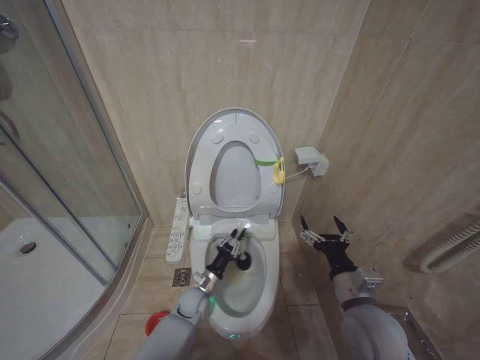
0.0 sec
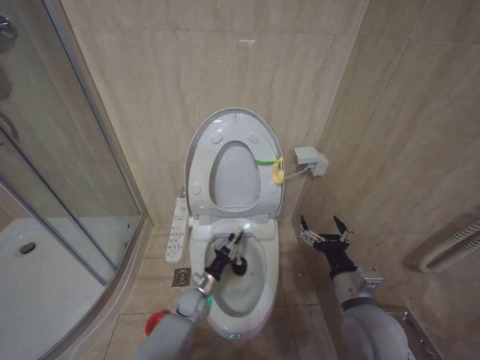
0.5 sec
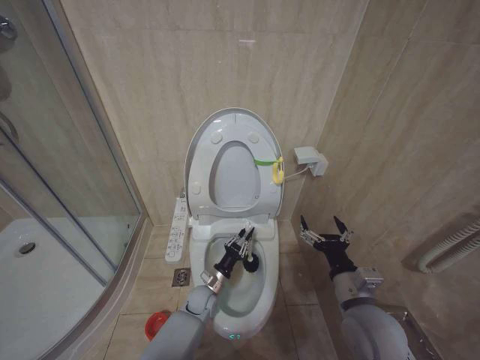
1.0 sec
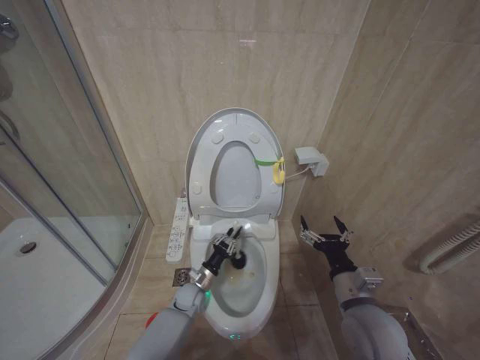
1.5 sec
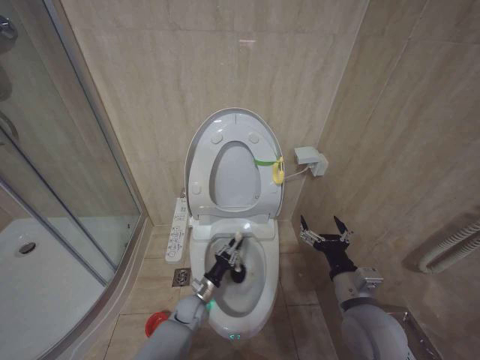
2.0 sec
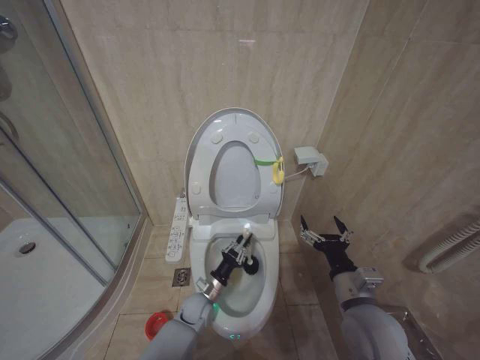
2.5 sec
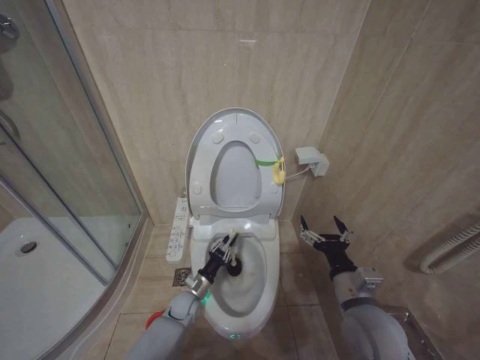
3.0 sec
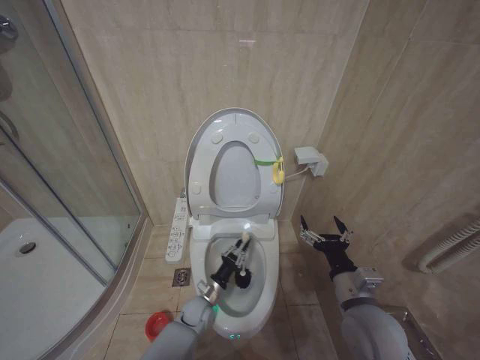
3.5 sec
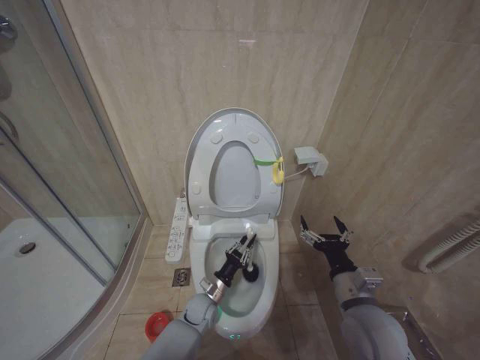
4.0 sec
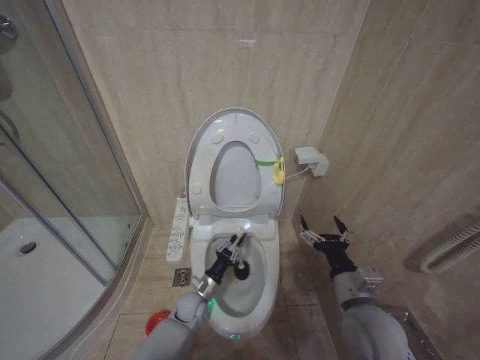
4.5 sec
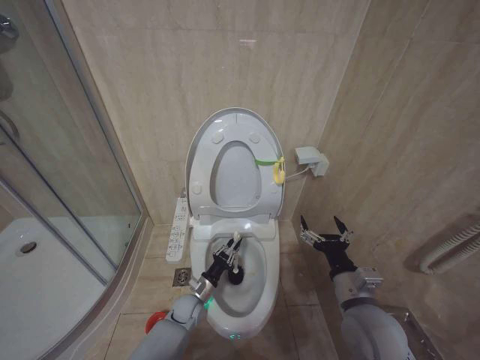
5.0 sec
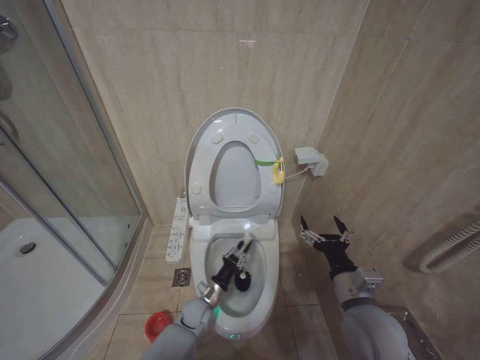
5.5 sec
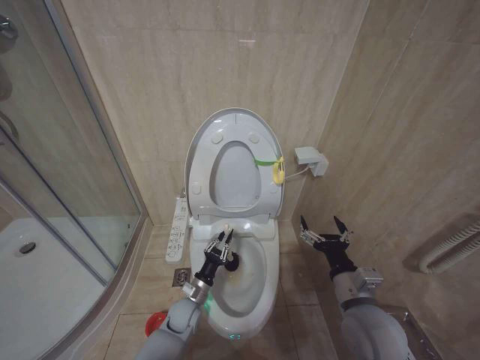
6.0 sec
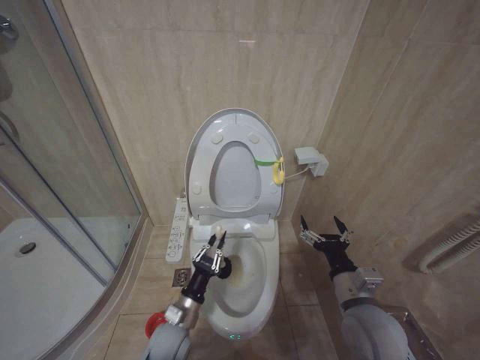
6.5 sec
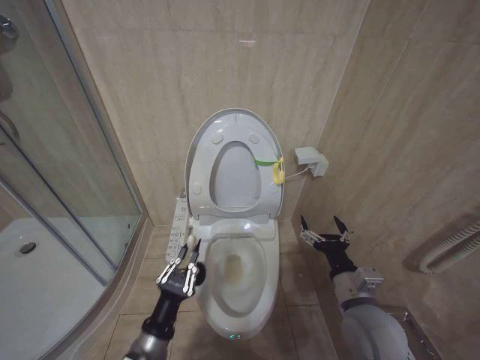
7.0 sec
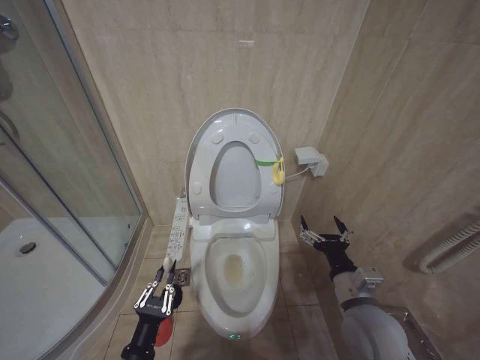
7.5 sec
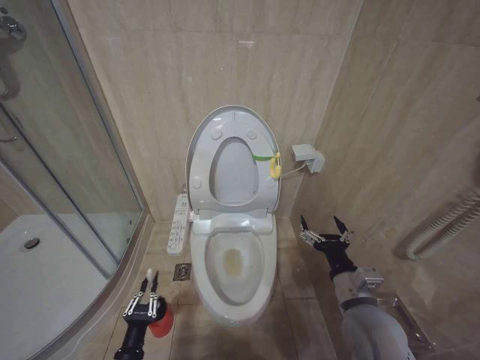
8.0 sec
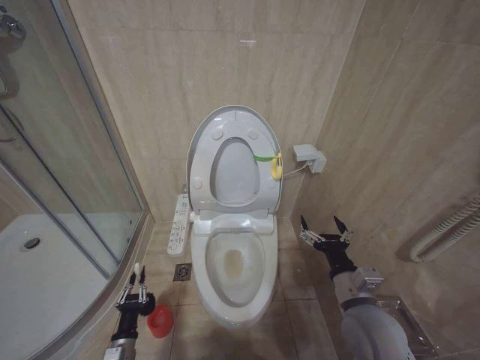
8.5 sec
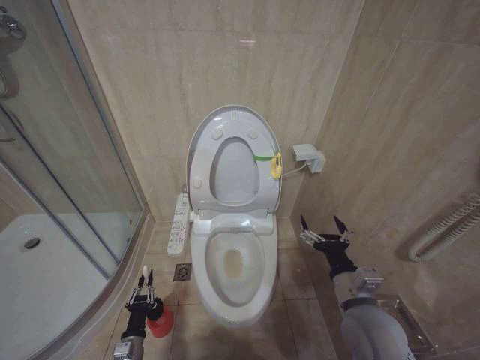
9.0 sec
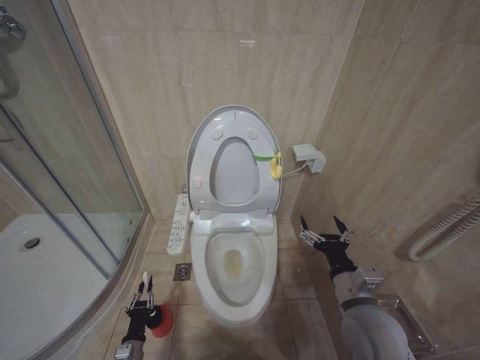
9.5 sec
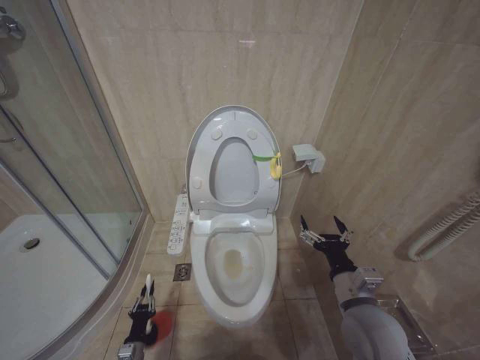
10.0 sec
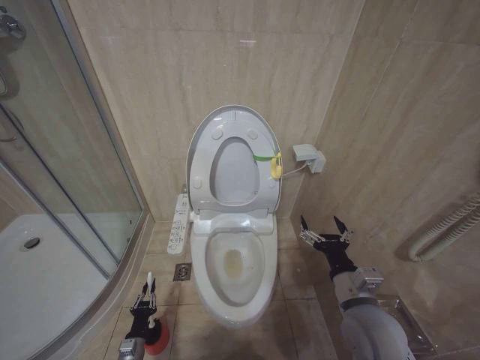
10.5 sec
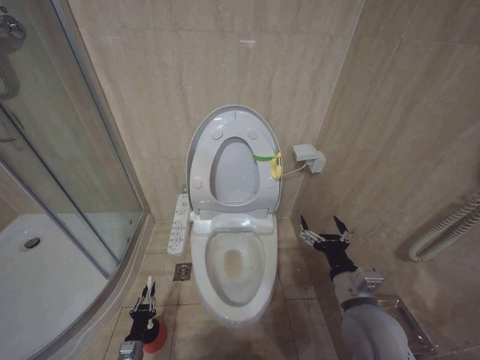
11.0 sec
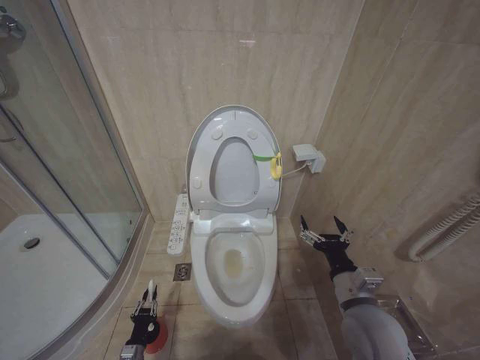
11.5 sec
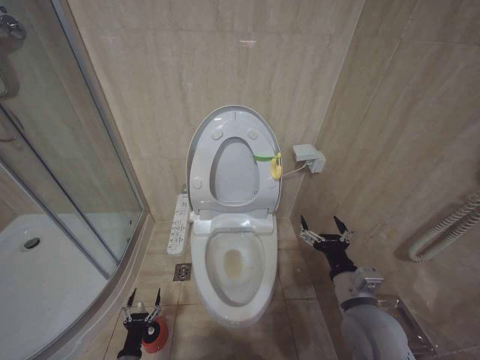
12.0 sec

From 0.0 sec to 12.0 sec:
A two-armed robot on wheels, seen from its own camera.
Task of the whole recording: Open the toilet lid, clean the toilet bowl with a toilet brush, close the toilet lid, and flush.
From 0.0 sec to 6.0 sec: The grippers make only small movements.
From 6.0 sec to 8.0 sec: The left gripper travels backward and to the left by some 25 cm.
From 8.0 sec to 10.0 sec: The left gripper heads downward and forward, covering approximately 15 cm.

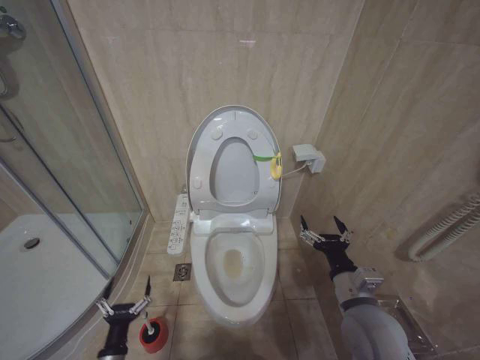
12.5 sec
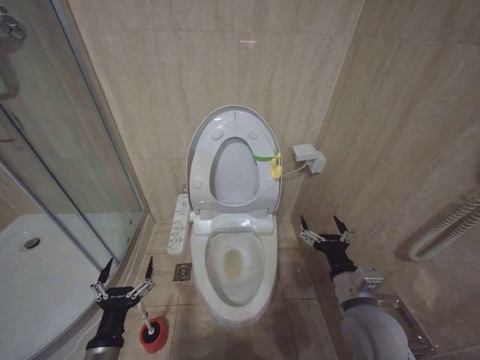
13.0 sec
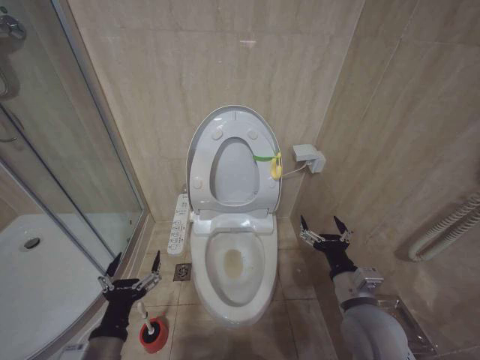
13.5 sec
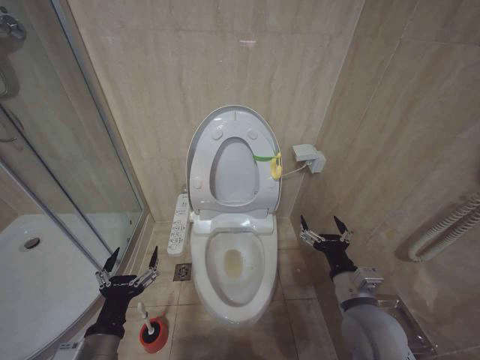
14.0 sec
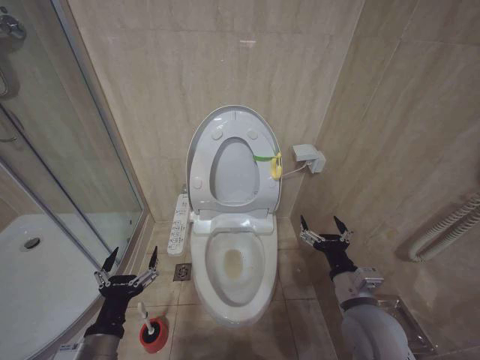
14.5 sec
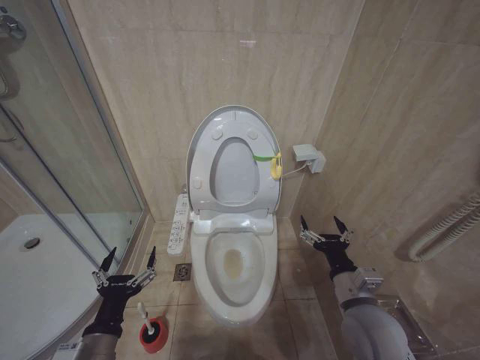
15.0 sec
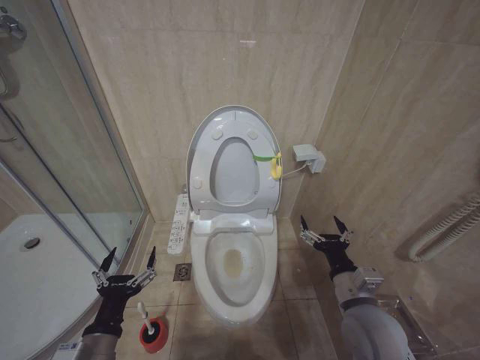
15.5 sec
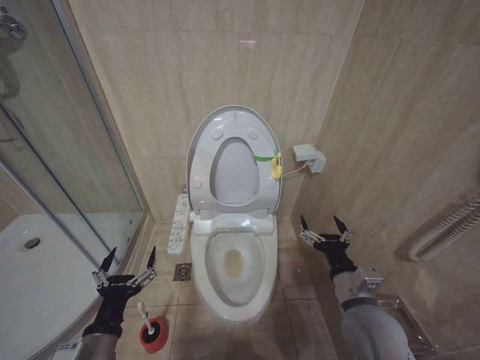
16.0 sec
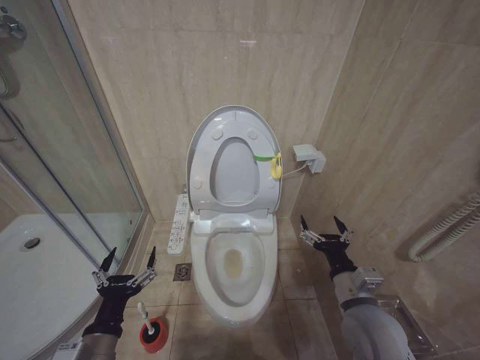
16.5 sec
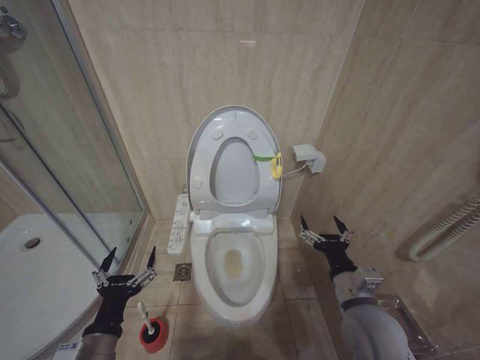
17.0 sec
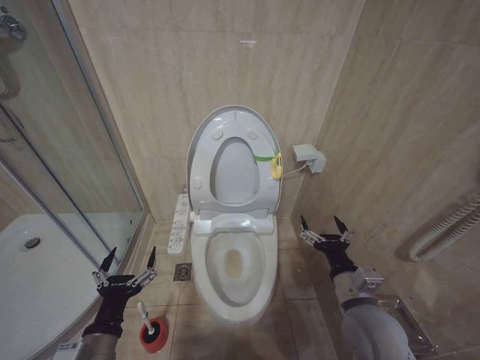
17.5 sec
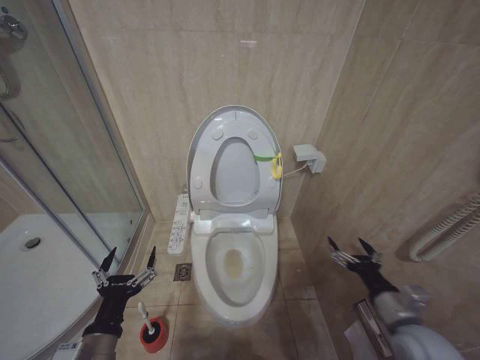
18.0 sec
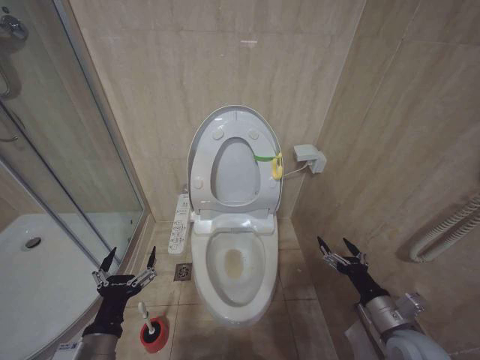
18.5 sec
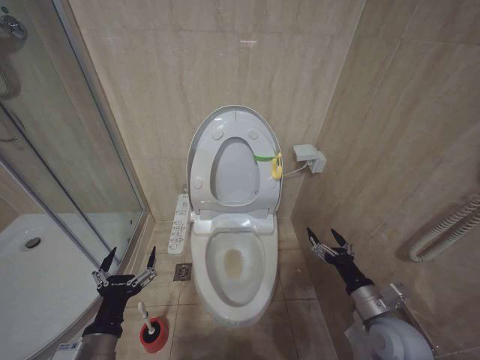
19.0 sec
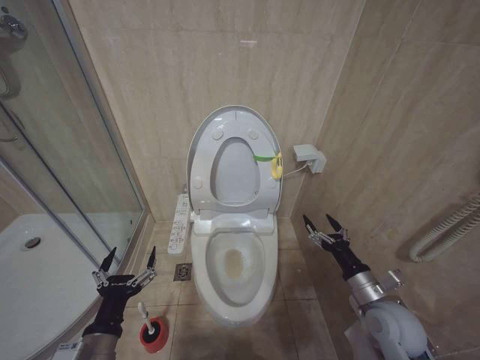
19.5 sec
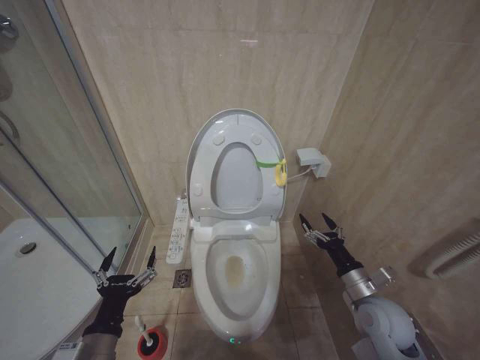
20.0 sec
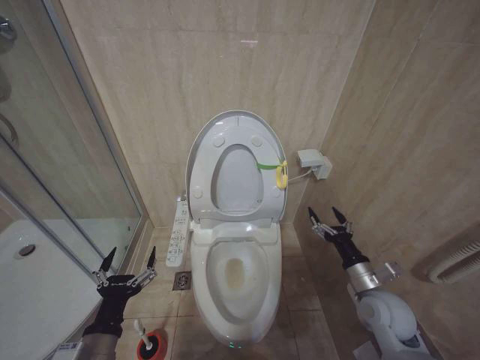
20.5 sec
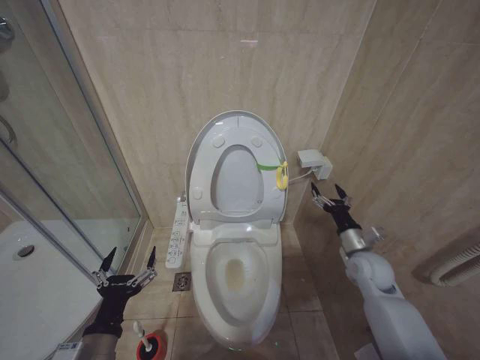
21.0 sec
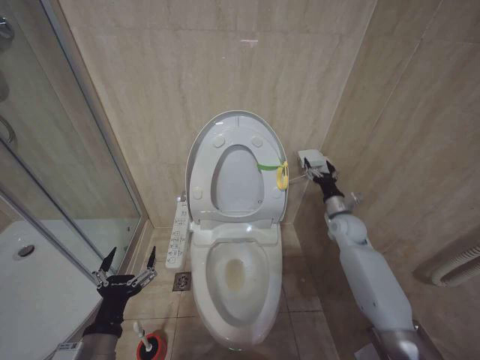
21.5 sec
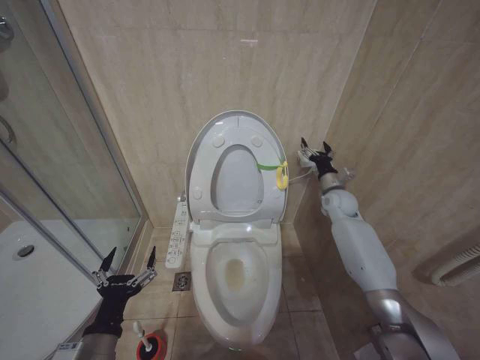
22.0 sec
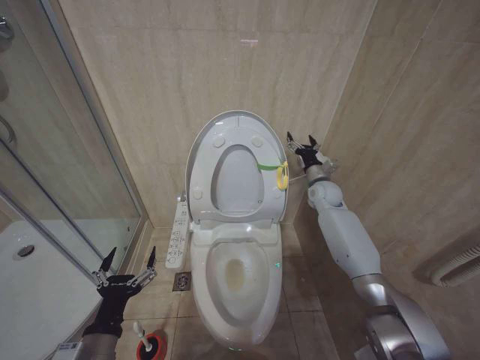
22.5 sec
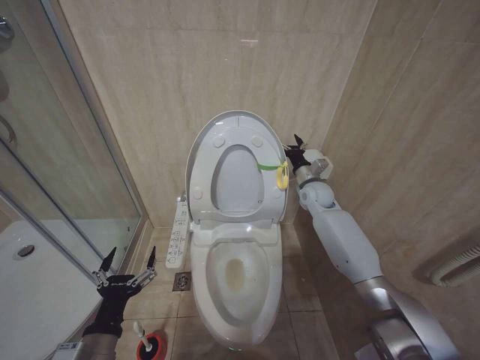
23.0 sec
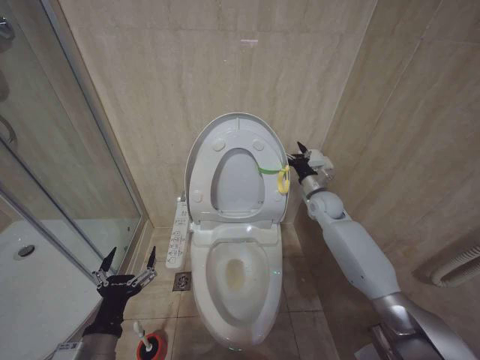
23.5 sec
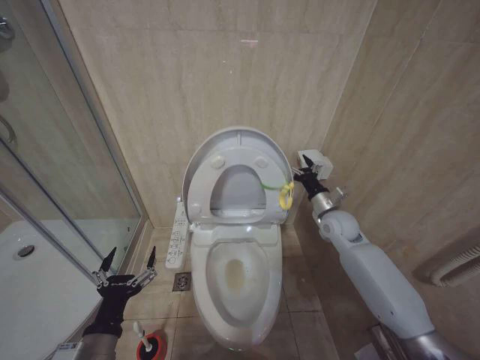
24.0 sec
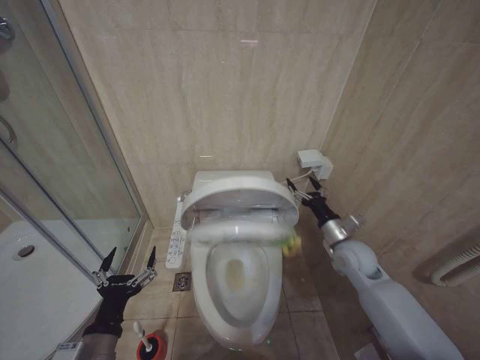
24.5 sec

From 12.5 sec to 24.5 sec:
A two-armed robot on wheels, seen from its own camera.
Task of the whole recording: Open the toilet lid, clean the toilet bowl with a toilet brush, close the toilet lid, and flush.
From 12.5 sec to 14.5 sec: The left gripper shifts about 25 cm upward.
From 14.5 sec to 16.5 sec: Neither gripper changes place.
From 16.5 sec to 18.5 sec: The right gripper shifts approximately 10 cm to the right and downward.
From 18.5 sec to 20.5 sec: The right gripper travels forward by some 10 cm.
From 20.5 sec to 22.5 sec: The right gripper goes roughly 30 cm forward.
From 22.5 sec to 24.5 sec: The right gripper shifts roughly 15 cm backward.

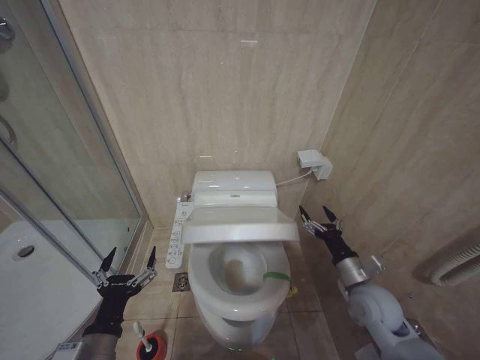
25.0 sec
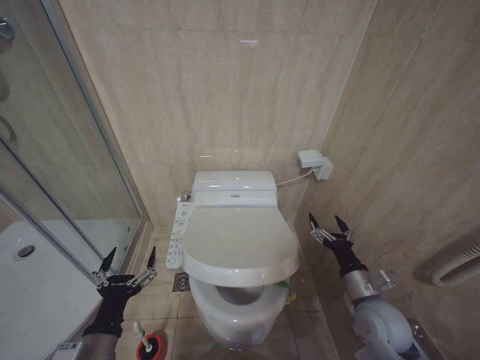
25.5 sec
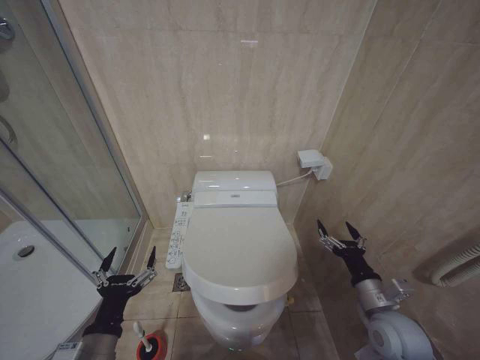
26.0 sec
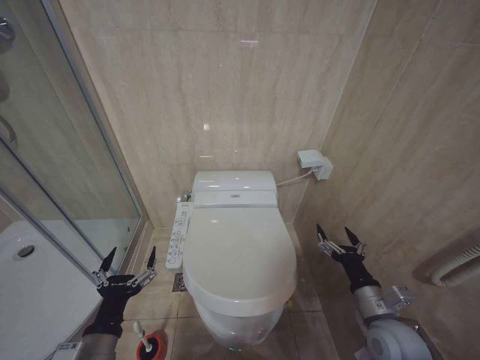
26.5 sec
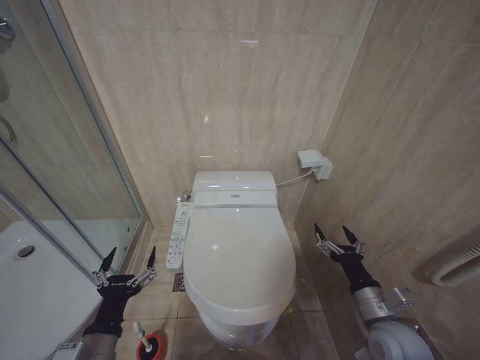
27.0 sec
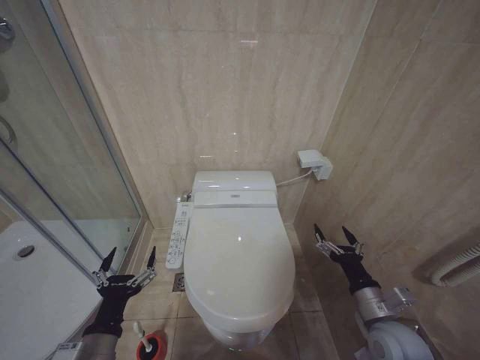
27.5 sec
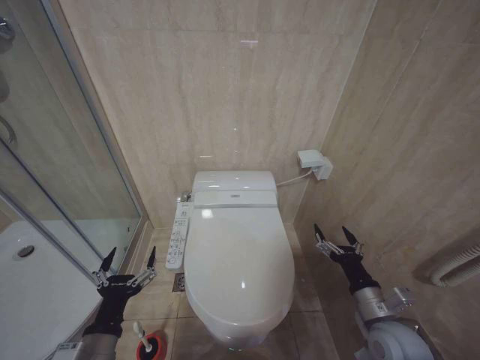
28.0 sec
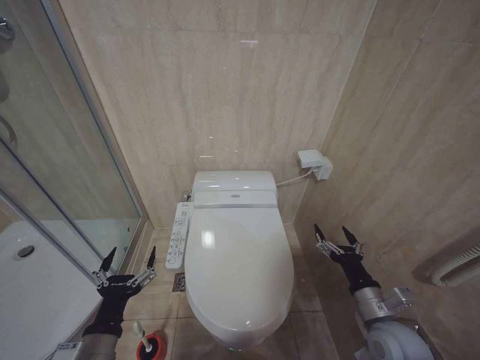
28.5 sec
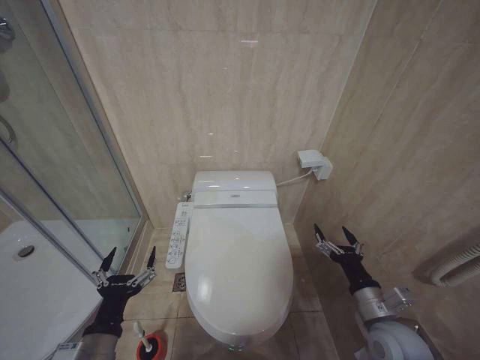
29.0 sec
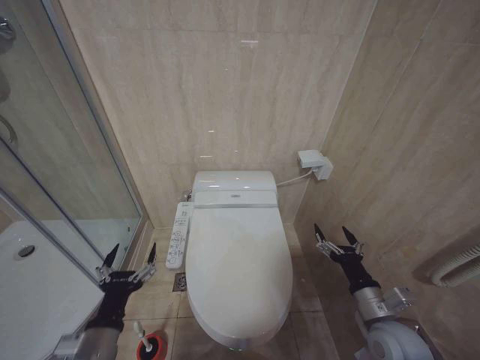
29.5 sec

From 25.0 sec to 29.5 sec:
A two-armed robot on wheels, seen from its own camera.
Task of the whole recording: Open the toilet lid, clean the toilet bowl with a toilet brush, close the toilet lid, and flush.
From 25.0 sec to 27.0 sec: The right gripper shifts roughly 10 cm backward.
From 27.0 sec to 29.5 sec: Both grippers stay about where they are.
